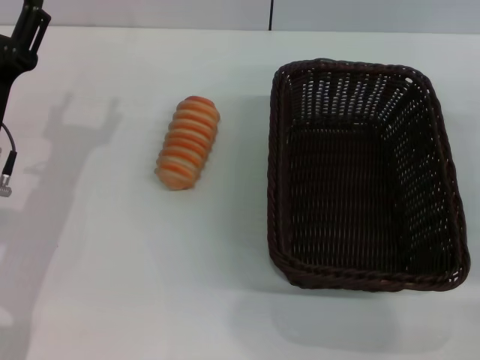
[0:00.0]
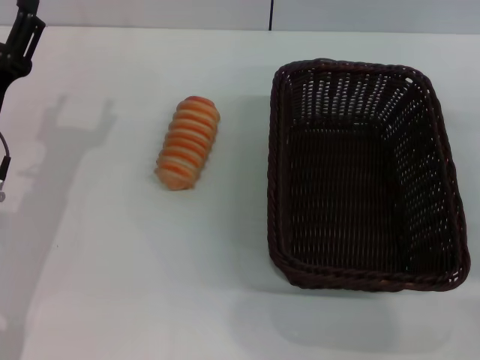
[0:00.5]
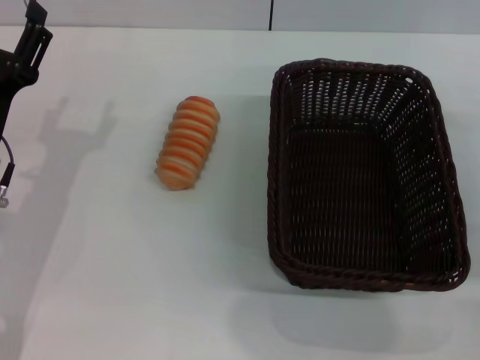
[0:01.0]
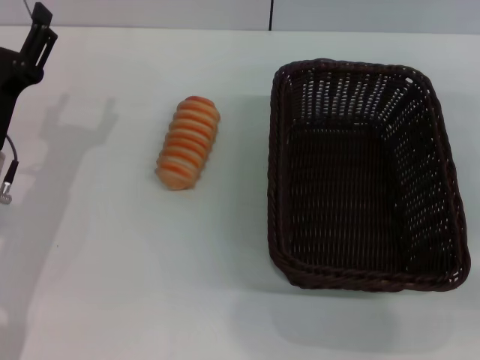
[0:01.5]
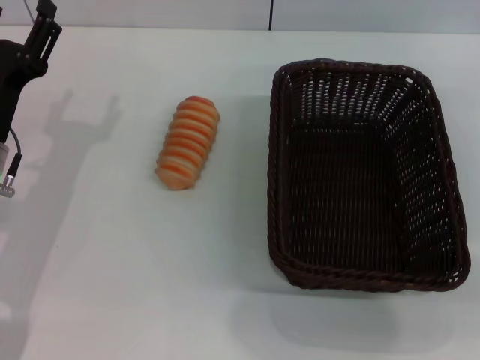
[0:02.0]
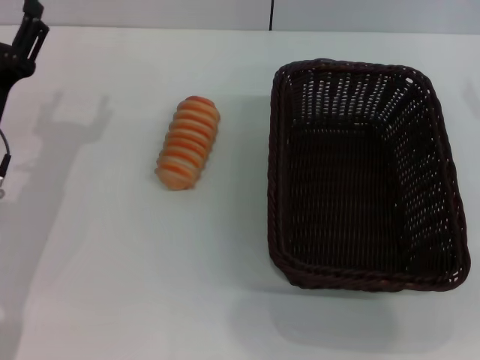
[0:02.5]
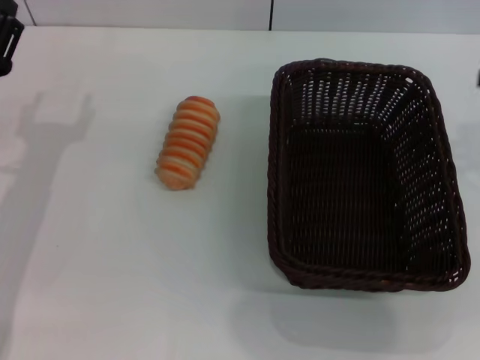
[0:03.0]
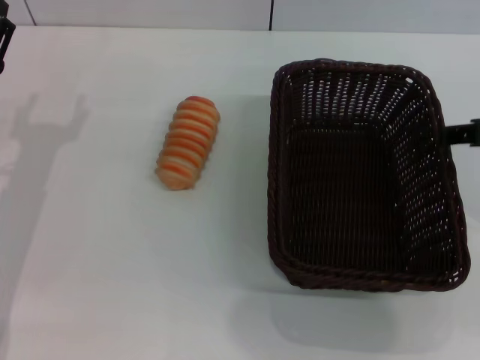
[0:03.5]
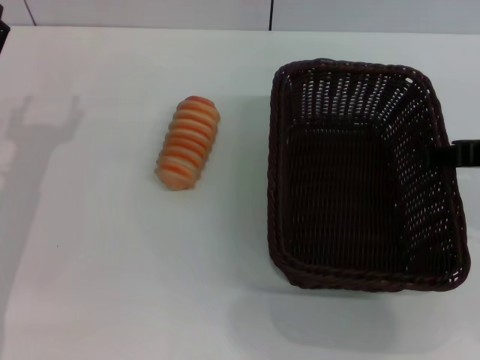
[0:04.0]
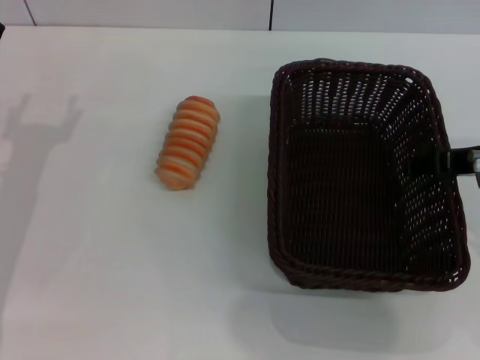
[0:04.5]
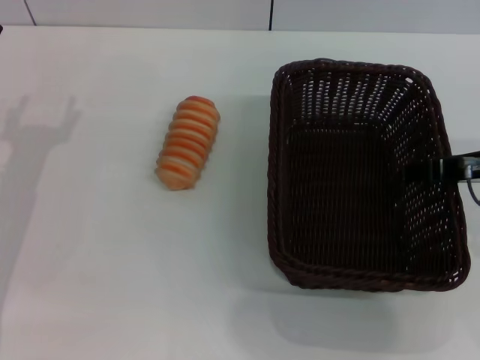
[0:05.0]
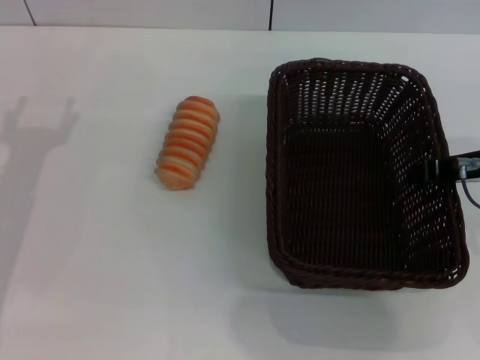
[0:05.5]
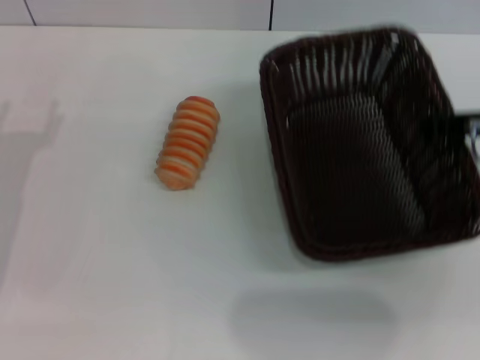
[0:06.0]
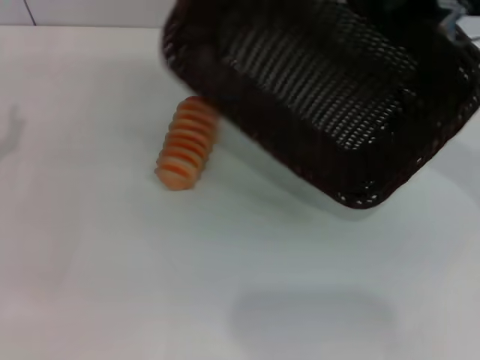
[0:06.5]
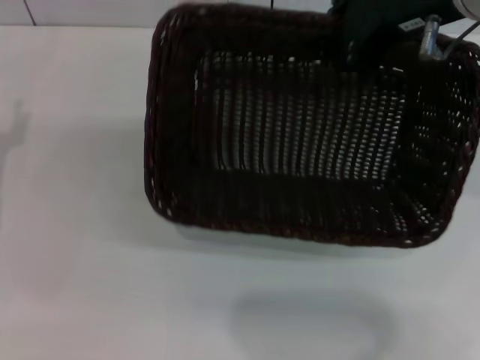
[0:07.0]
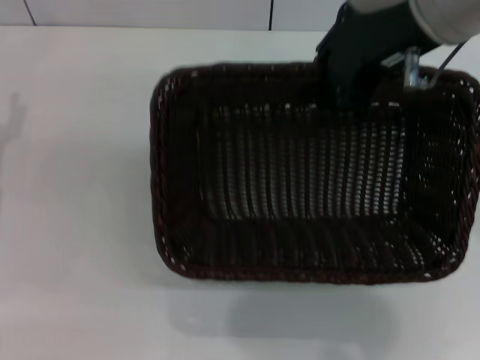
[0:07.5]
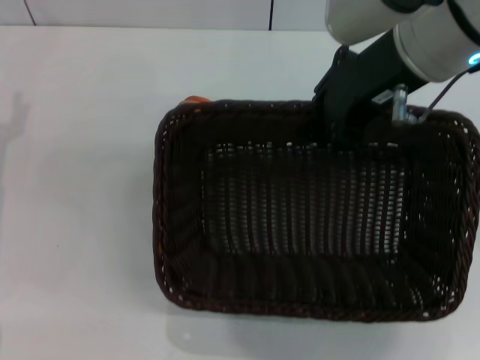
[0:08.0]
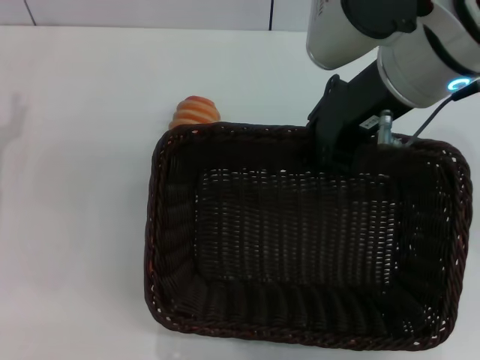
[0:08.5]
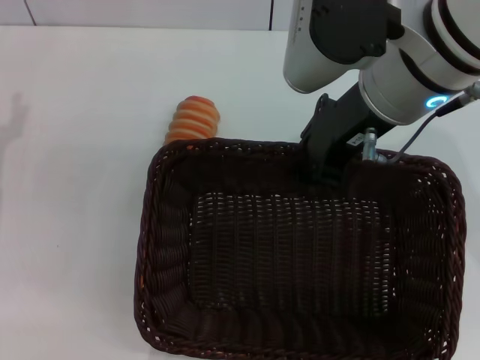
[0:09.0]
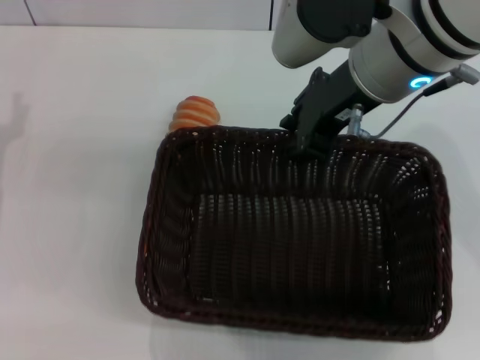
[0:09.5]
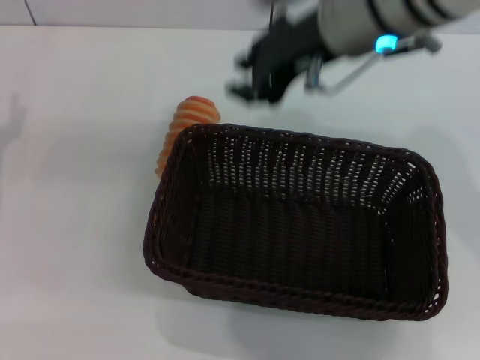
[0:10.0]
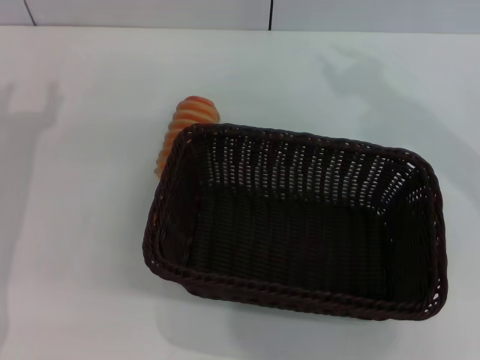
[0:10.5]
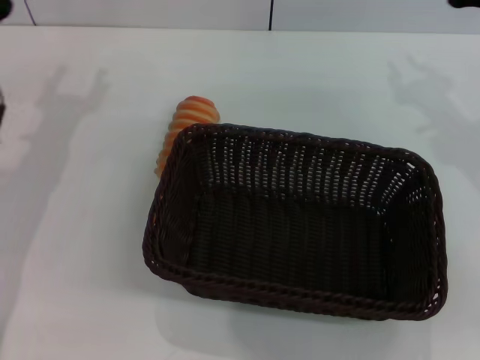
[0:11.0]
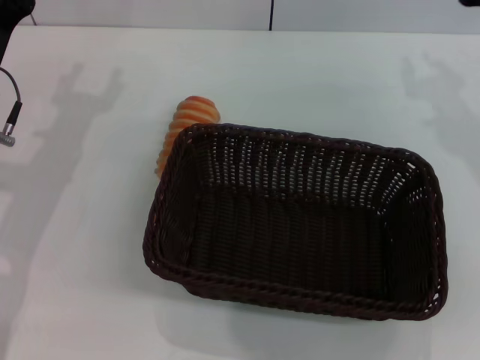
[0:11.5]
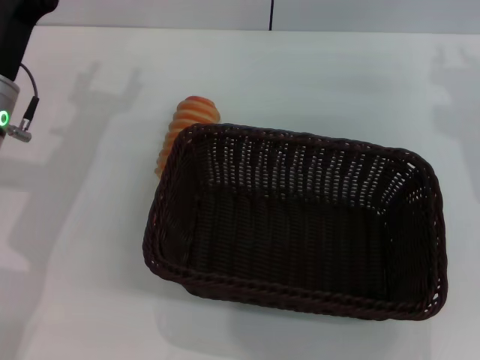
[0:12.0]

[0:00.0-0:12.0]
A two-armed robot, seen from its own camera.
Step, 0:00.0 to 0:06.0: Pick up the dark basket with the right gripper.
Step, 0:06.5 to 0:09.5: Place the dark basket in the center of view with the right gripper.
0:04.0 to 0:06.0: The right gripper closes its fingers.
0:06.0 to 0:08.0: The right gripper heads to the left and upward, covering roughly 15 cm.
0:10.0 to 0:12.0: The left gripper is displaced to the right and forward by approximately 10 cm. The right gripper is displaced to the right and downward by some 20 cm.

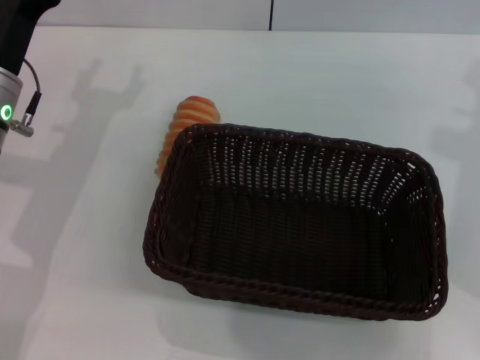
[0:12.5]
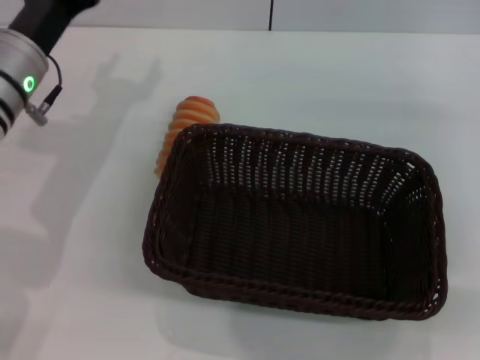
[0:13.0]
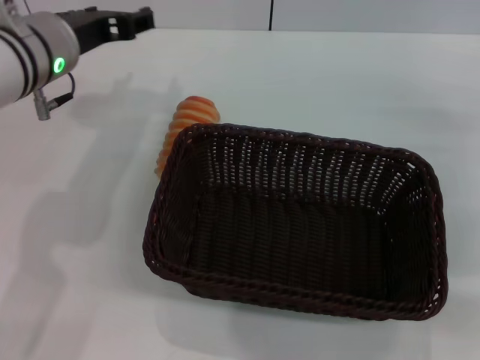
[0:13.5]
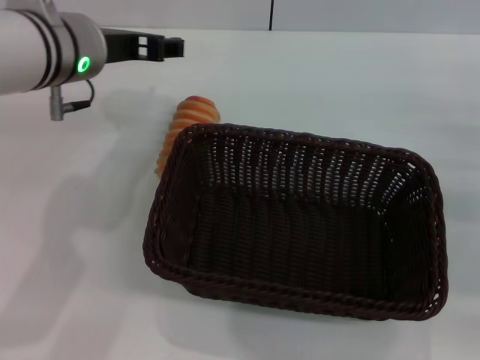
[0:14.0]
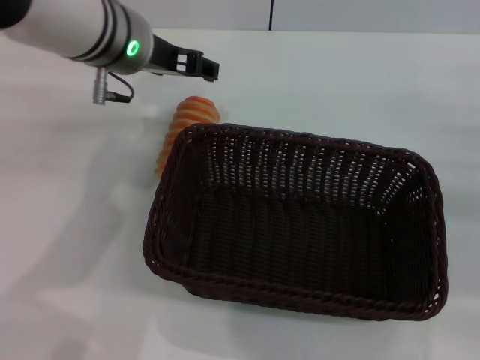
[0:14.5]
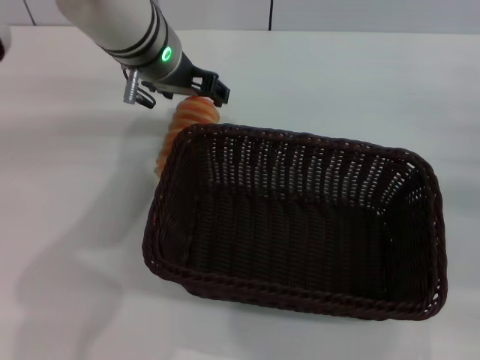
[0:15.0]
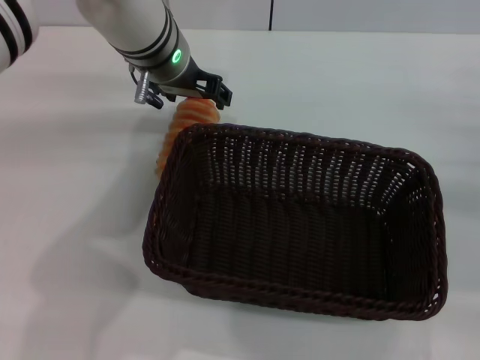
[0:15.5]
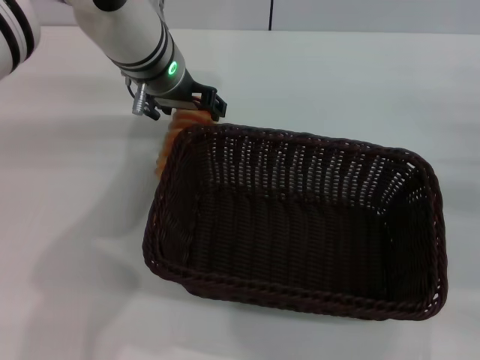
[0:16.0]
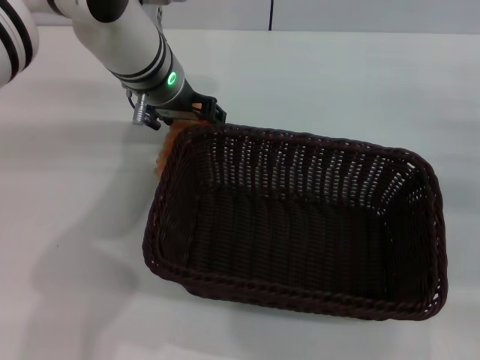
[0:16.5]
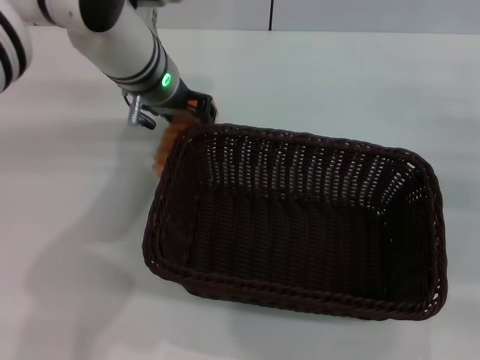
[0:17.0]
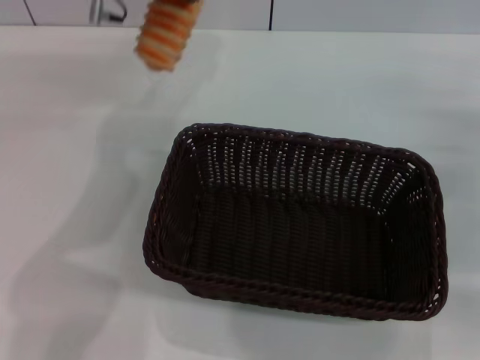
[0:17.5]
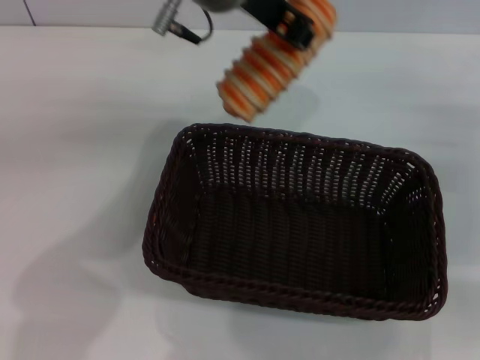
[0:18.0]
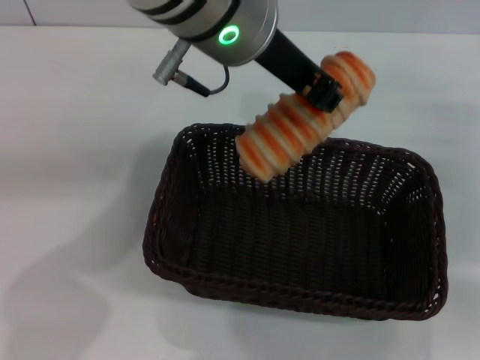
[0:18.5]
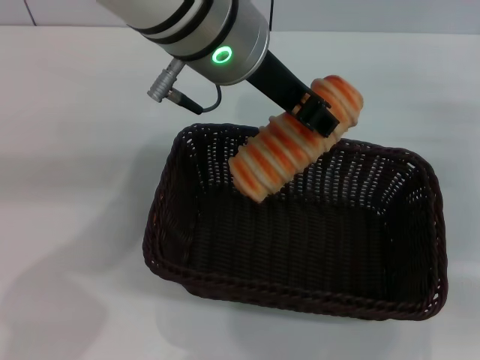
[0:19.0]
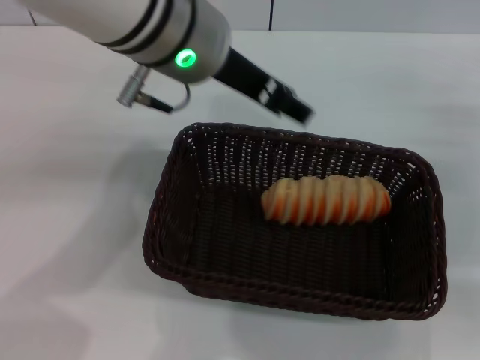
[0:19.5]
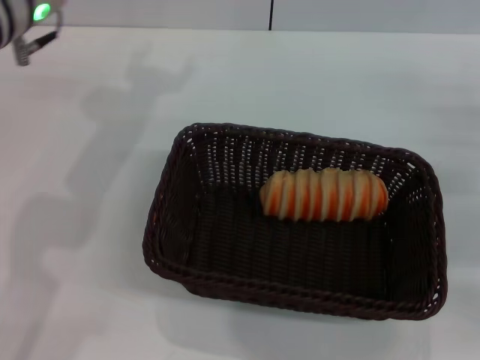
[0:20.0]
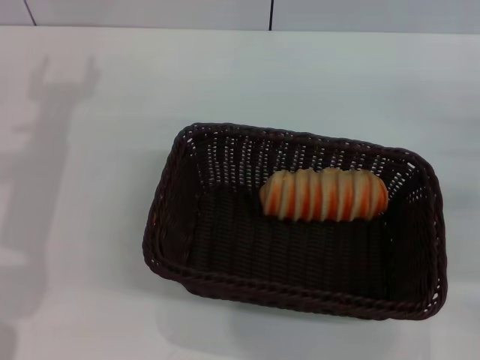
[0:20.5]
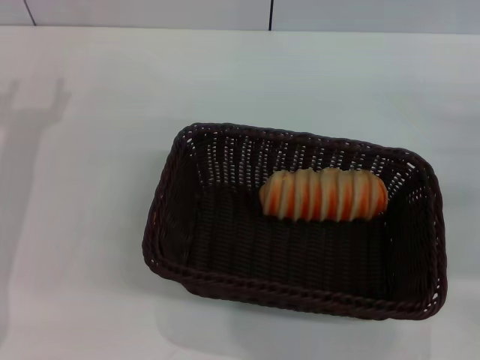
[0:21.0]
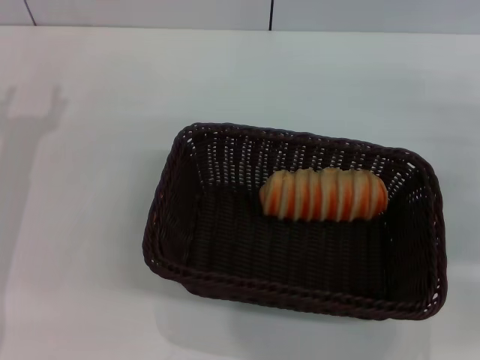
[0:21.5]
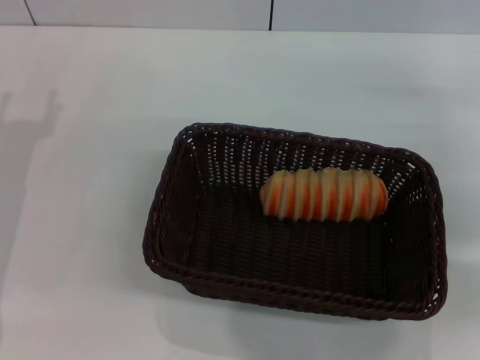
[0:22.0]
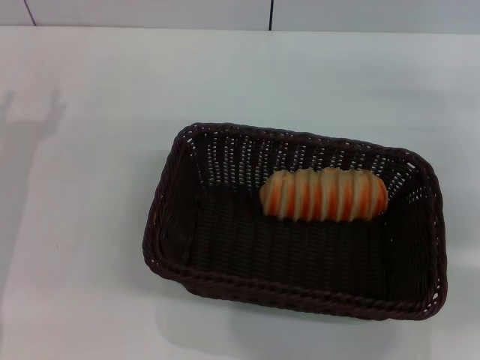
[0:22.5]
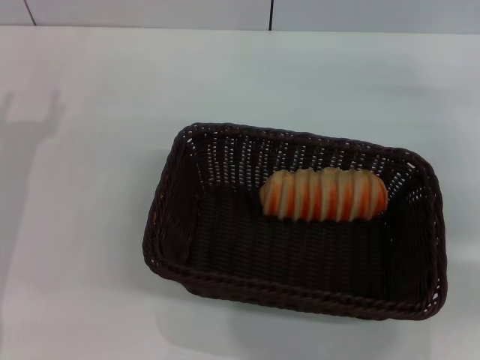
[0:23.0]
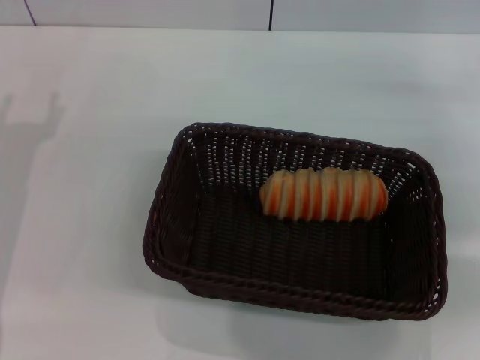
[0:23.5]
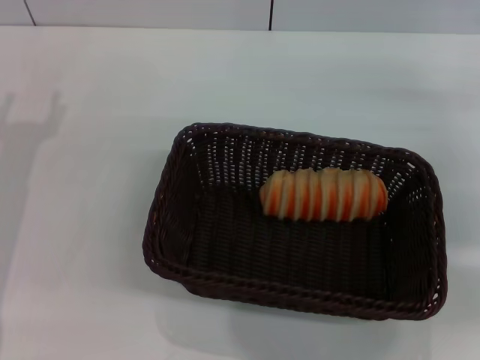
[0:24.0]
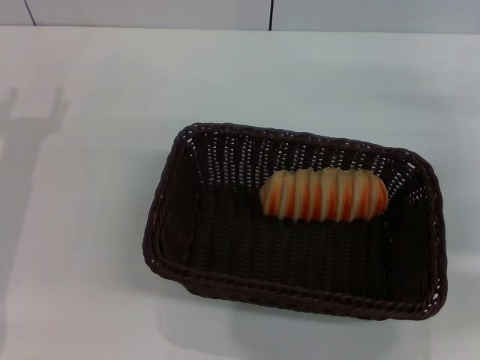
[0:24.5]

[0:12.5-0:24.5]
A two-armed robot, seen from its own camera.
Step, 0:12.5 to 0:17.0: Pick up the long bread with the left gripper.
Step, 0:17.5 to 0:19.5: Place the long bread into the dark basket with the left gripper.
0:12.5 to 0:14.5: The right gripper moves to the right and downward, approximately 15 cm, and opens, while the left gripper travels to the right, upward and forward by some 15 cm.
0:14.5 to 0:16.5: The left gripper travels downward by about 5 cm.
0:16.5 to 0:18.5: The left gripper shifts approximately 20 cm upward, backward and to the right, and closes.
0:18.5 to 0:20.5: The left gripper moves to the left and downward, some 25 cm, and opens.

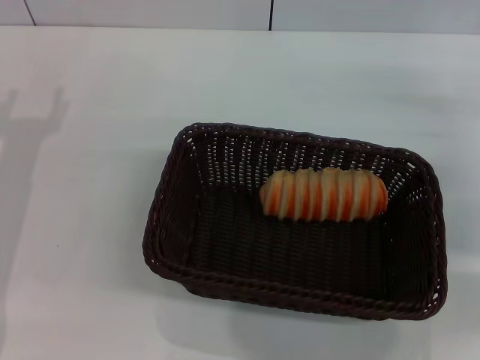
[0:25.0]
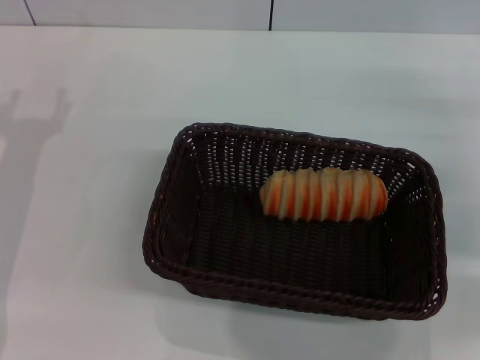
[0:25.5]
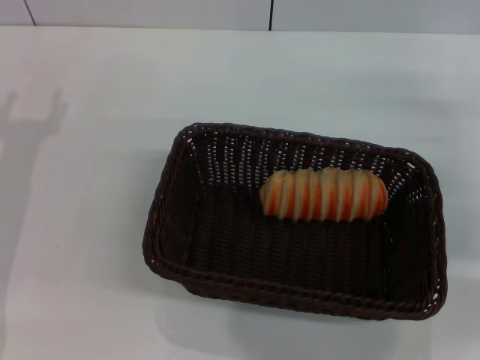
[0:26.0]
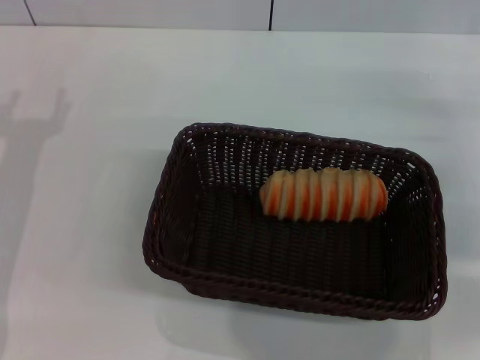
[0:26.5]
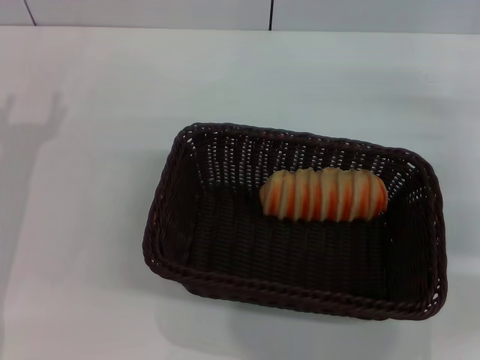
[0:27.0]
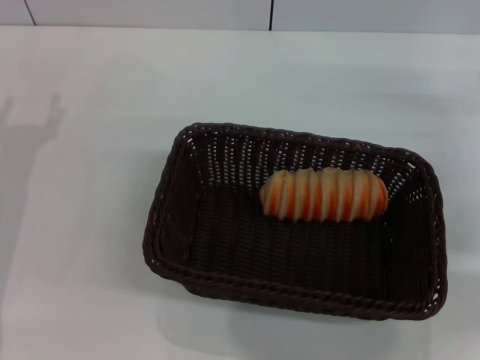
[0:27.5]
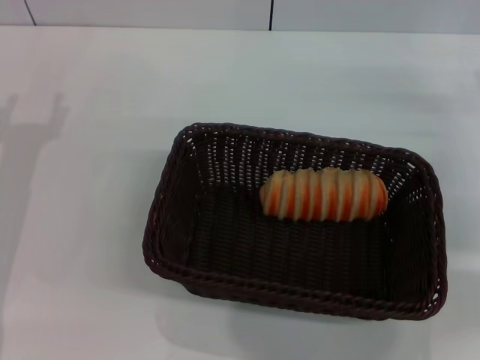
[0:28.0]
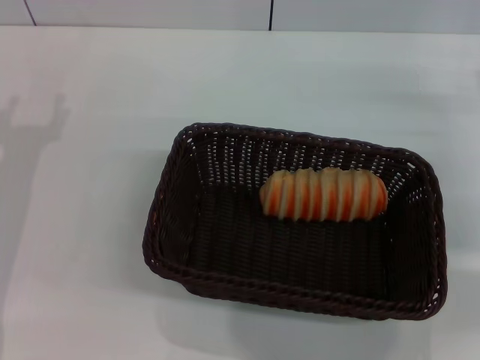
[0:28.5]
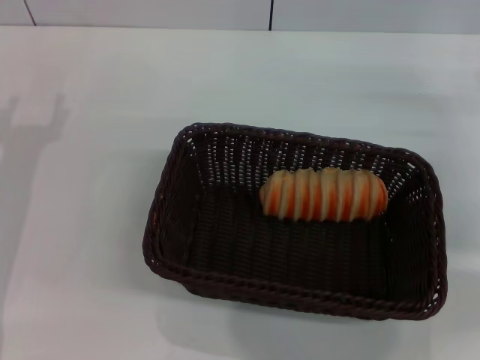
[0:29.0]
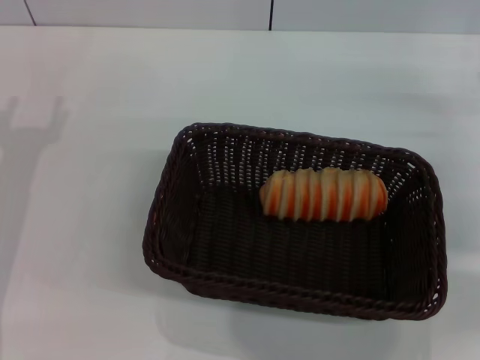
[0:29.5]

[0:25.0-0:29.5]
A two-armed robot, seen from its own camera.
0:25.0 to 0:27.0: The two grippers keep their place.
0:27.0 to 0:29.5: Both grippers stay about where they are.
